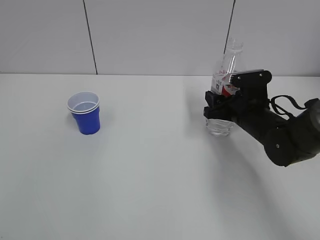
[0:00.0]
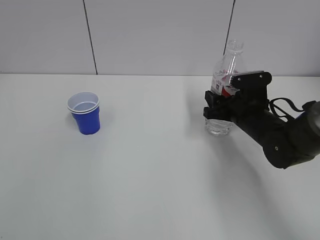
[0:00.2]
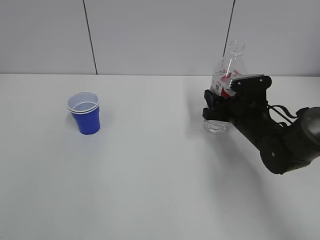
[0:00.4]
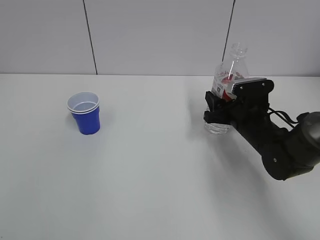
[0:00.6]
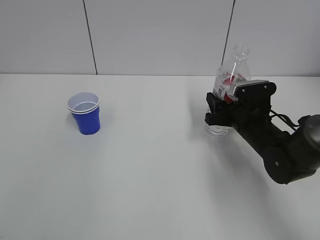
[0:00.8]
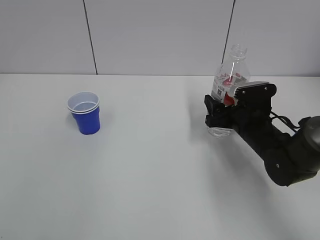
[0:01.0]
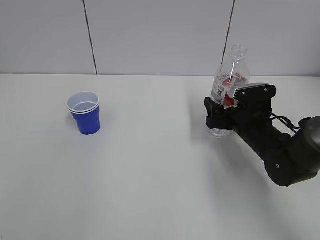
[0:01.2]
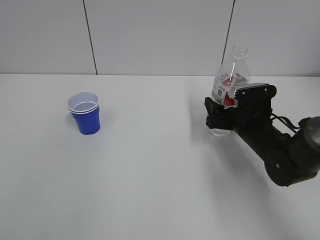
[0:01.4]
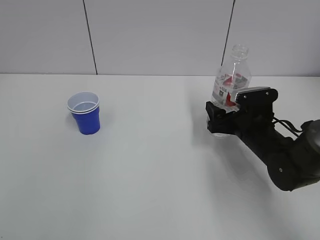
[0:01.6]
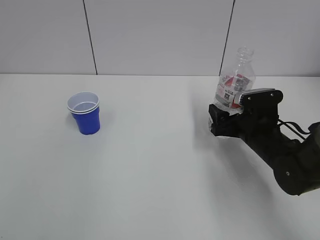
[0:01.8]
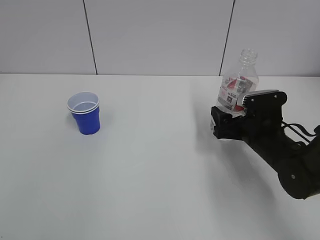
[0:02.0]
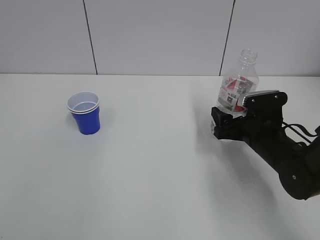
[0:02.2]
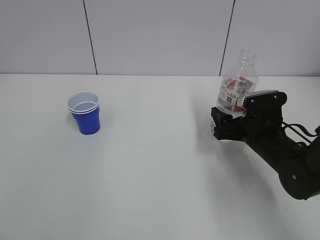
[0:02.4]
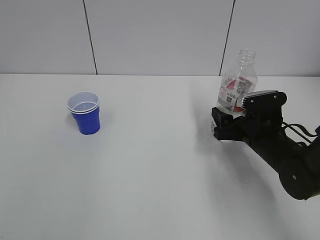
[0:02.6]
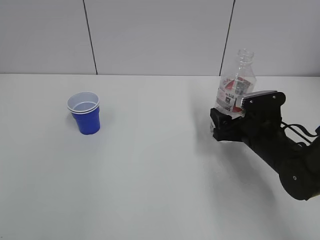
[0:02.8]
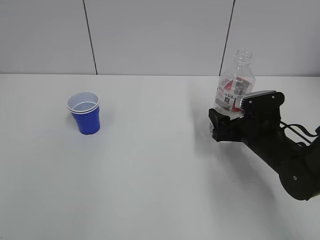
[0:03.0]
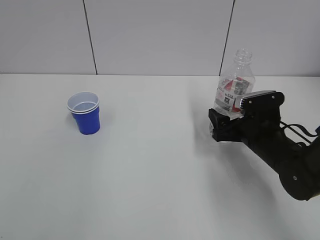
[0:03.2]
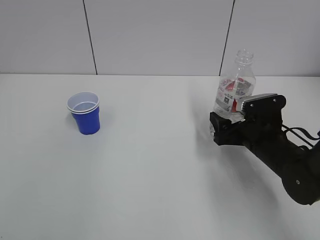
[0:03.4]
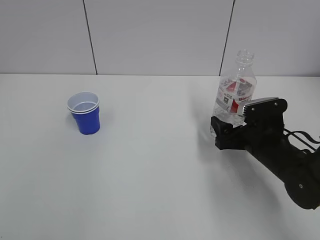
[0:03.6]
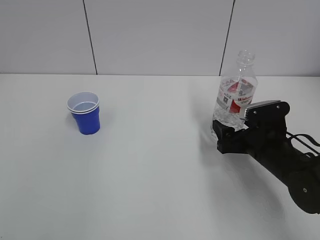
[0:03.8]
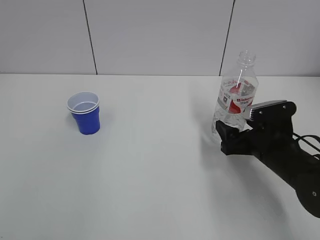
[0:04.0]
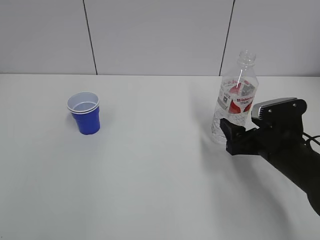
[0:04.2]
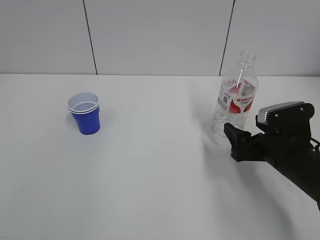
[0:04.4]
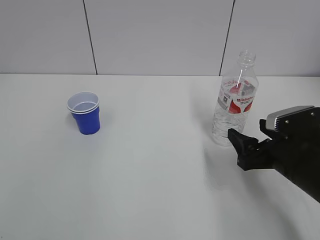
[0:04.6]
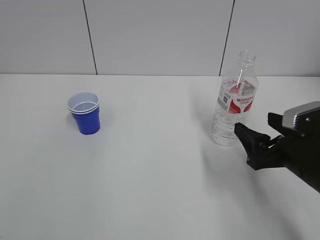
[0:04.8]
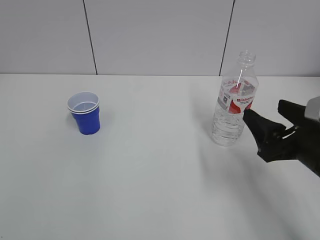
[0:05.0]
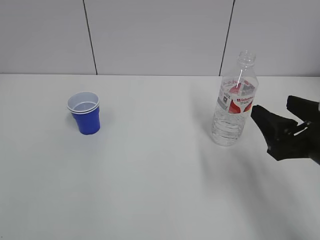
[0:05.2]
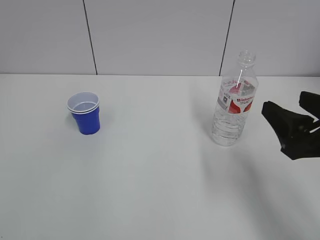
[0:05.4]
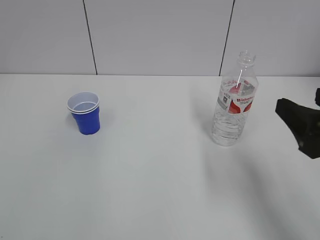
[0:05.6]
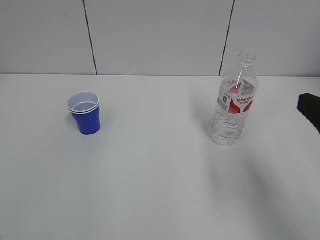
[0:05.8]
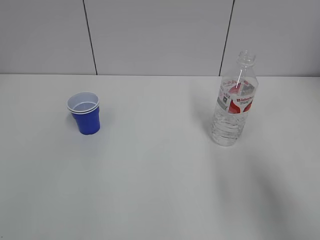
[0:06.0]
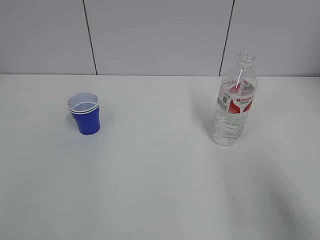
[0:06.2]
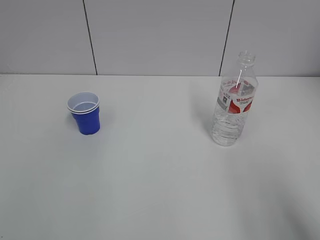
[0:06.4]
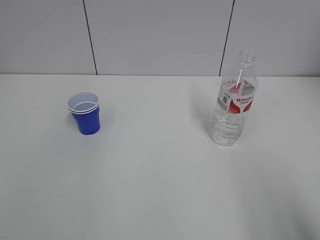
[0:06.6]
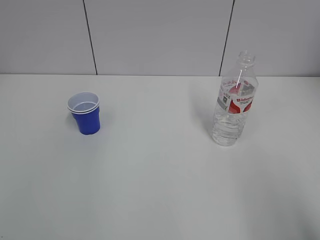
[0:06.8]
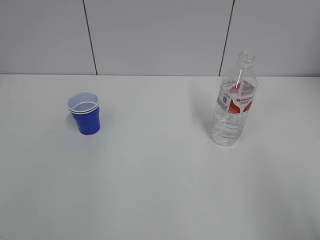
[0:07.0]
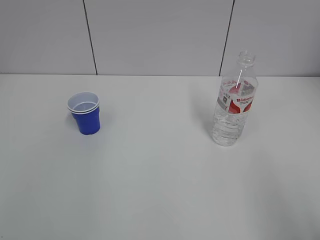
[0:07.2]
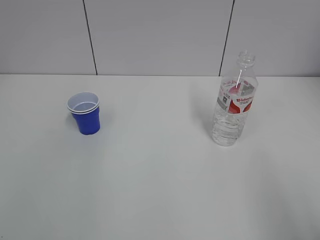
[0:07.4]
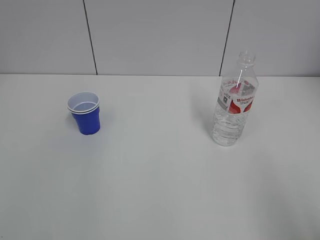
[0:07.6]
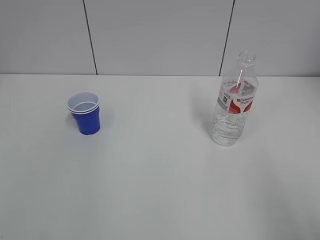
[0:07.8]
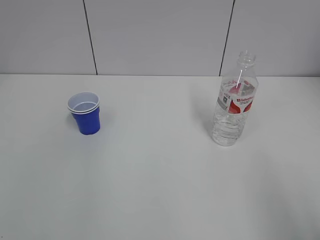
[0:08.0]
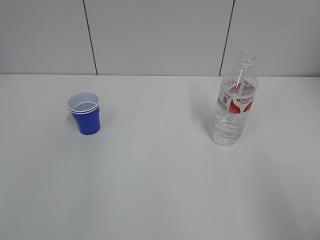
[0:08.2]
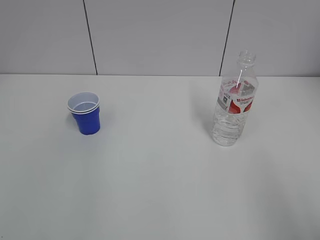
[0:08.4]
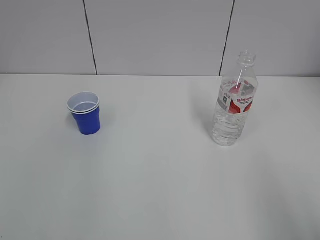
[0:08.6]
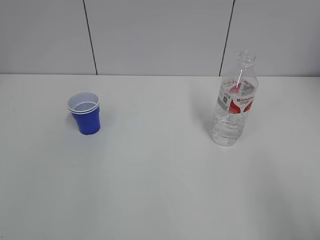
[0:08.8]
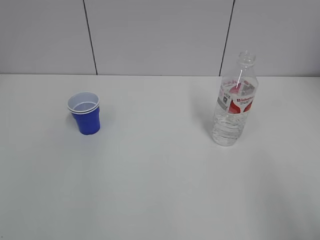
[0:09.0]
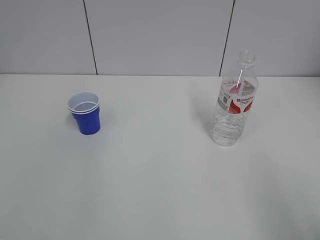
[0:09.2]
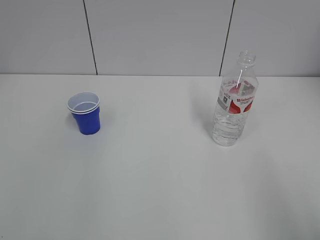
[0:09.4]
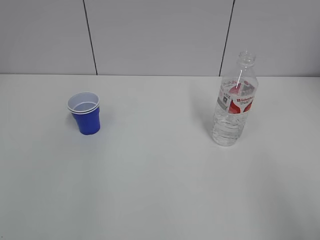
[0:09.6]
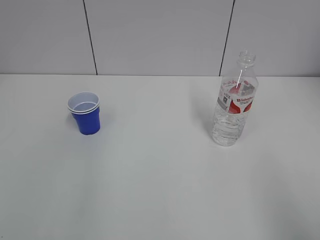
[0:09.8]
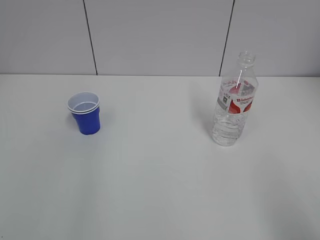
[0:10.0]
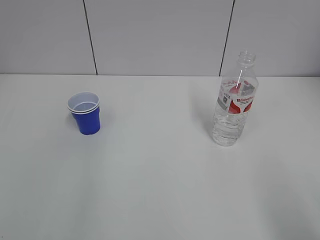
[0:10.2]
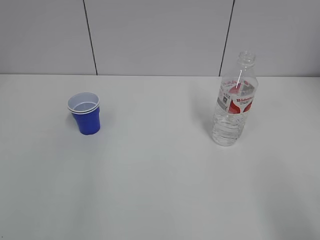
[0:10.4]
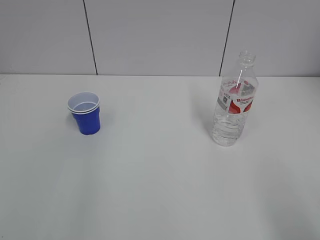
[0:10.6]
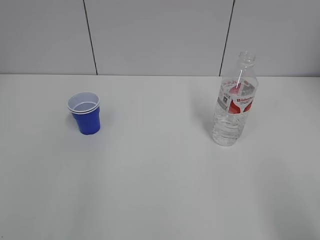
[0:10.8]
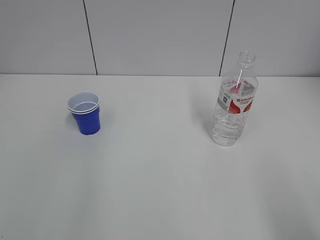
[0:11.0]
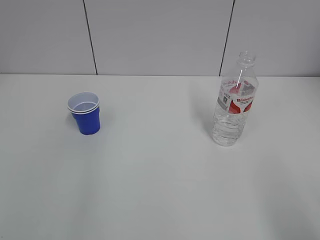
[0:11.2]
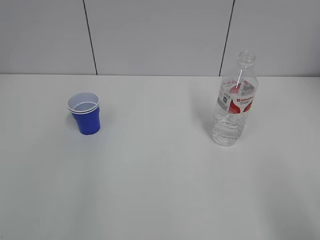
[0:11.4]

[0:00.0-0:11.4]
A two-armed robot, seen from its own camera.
0:00.0 to 0:01.4: The right gripper opens its fingers.
0:01.4 to 0:02.8: The grippers move only a little.
0:02.8 to 0:04.2: The right gripper shifts by about 5 cm.
0:04.2 to 0:05.6: The right gripper shifts some 20 cm upward and backward.
0:05.6 to 0:07.2: The right gripper travels backward by roughly 15 cm.
0:07.2 to 0:08.6: Neither gripper changes place.
0:10.0 to 0:11.4: Neither gripper changes place.
